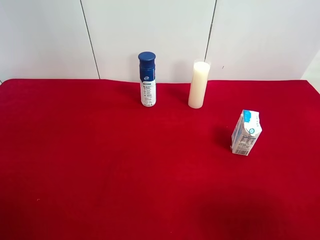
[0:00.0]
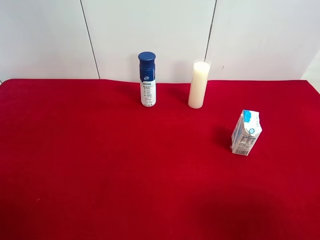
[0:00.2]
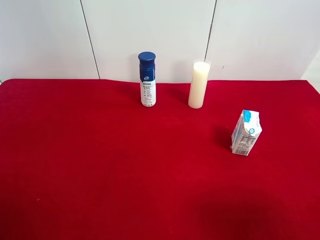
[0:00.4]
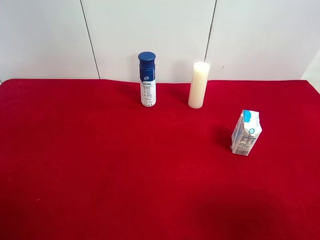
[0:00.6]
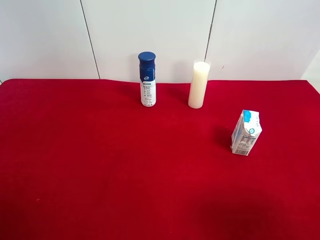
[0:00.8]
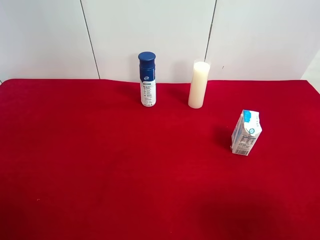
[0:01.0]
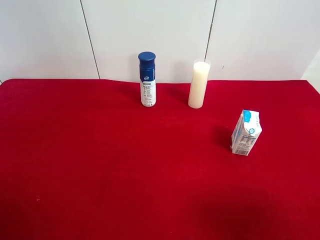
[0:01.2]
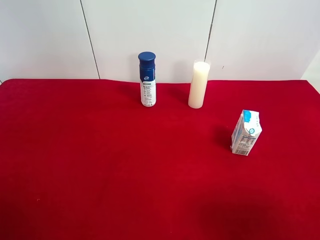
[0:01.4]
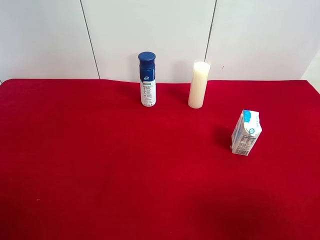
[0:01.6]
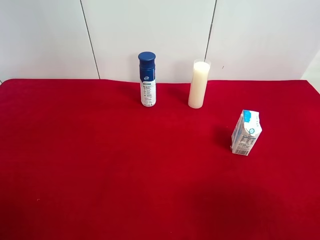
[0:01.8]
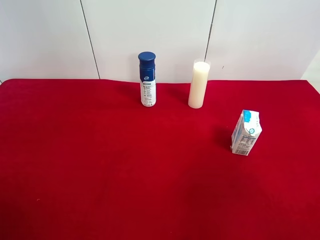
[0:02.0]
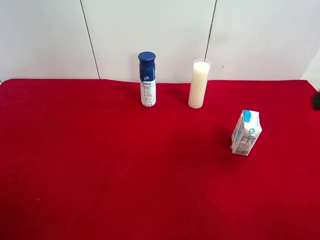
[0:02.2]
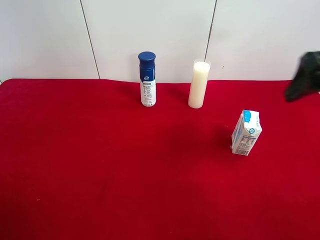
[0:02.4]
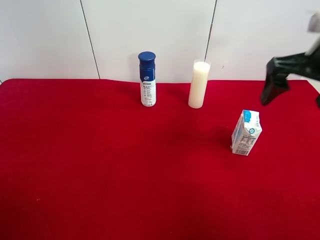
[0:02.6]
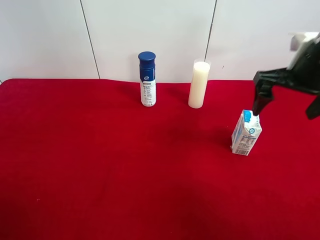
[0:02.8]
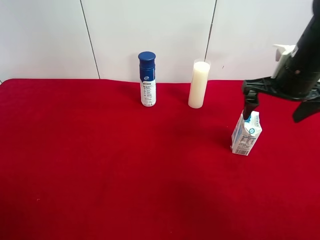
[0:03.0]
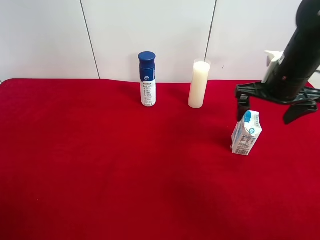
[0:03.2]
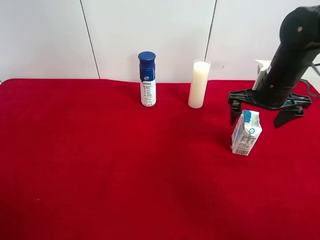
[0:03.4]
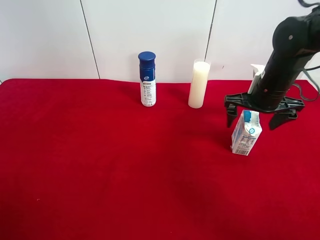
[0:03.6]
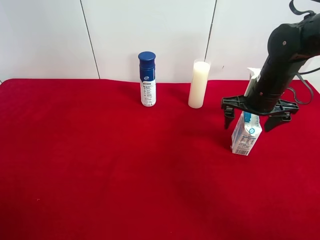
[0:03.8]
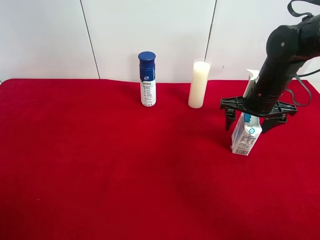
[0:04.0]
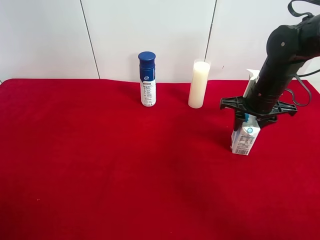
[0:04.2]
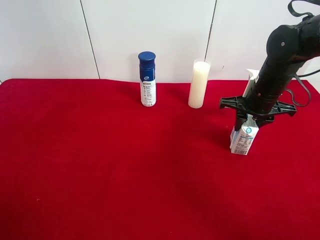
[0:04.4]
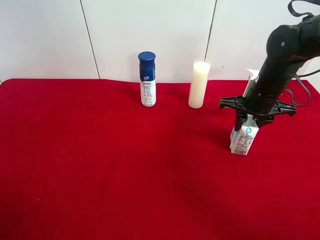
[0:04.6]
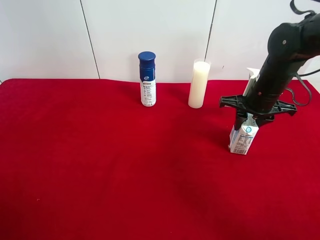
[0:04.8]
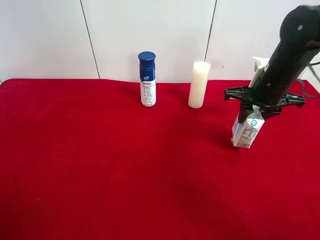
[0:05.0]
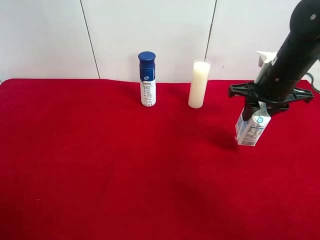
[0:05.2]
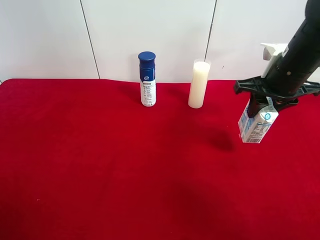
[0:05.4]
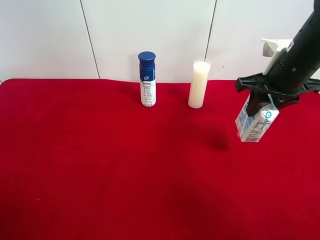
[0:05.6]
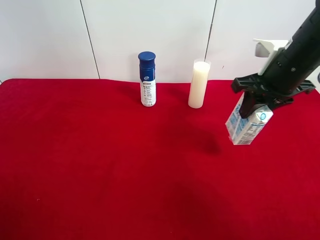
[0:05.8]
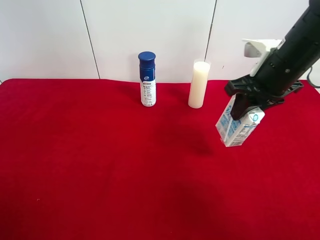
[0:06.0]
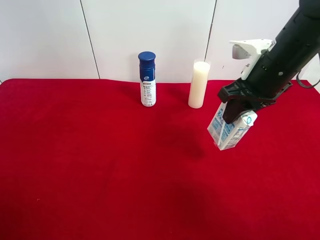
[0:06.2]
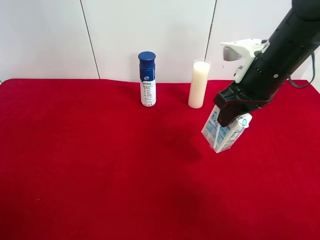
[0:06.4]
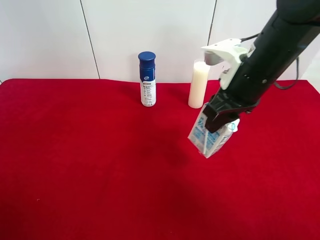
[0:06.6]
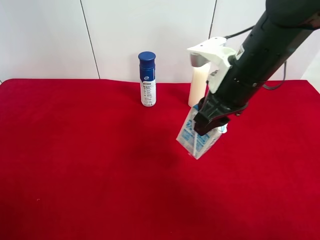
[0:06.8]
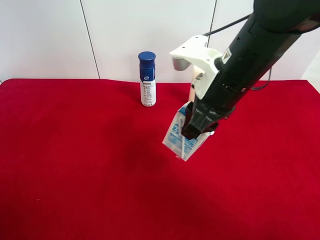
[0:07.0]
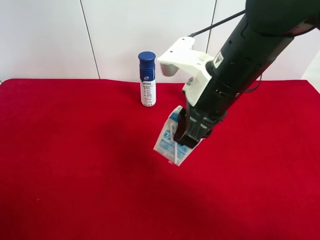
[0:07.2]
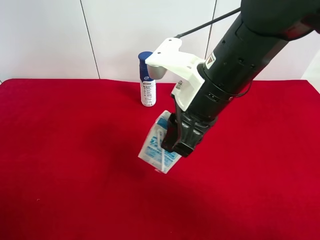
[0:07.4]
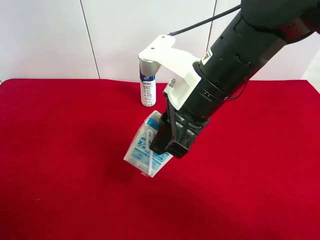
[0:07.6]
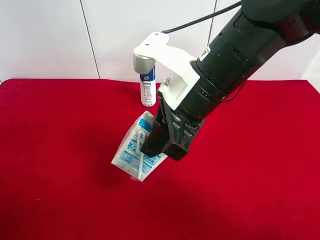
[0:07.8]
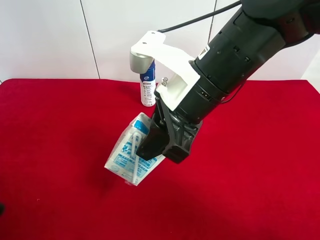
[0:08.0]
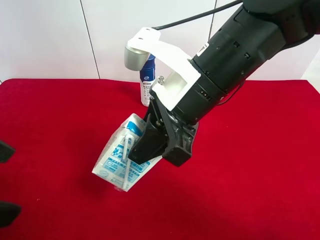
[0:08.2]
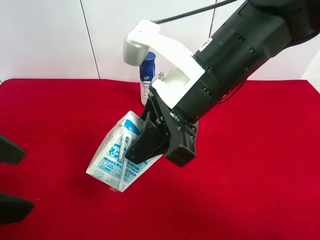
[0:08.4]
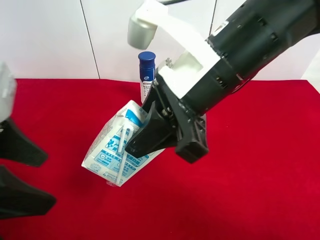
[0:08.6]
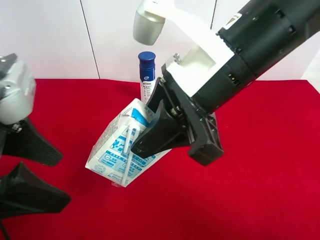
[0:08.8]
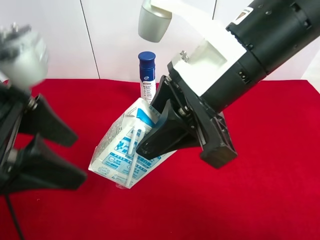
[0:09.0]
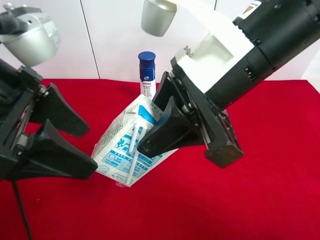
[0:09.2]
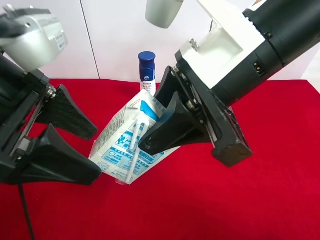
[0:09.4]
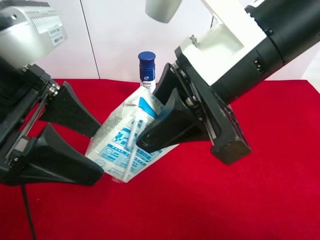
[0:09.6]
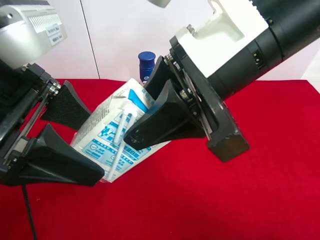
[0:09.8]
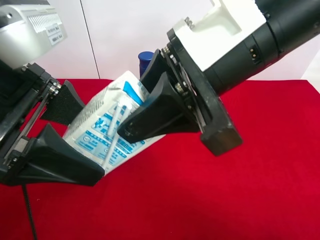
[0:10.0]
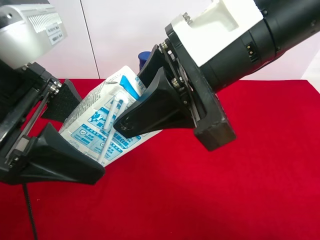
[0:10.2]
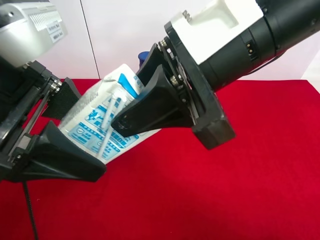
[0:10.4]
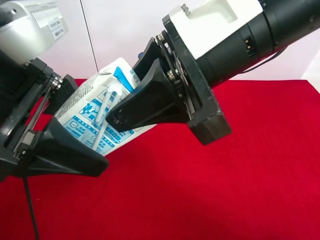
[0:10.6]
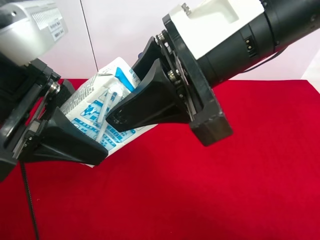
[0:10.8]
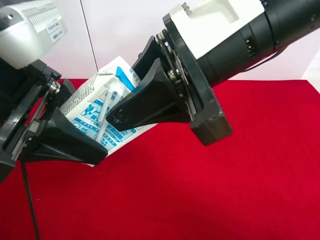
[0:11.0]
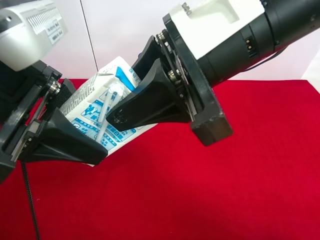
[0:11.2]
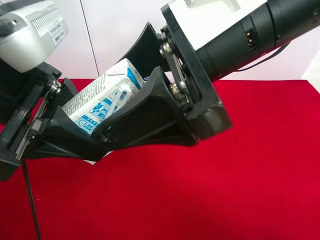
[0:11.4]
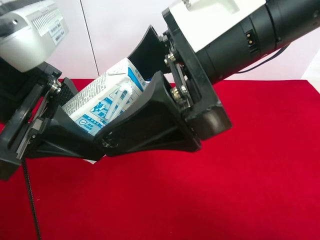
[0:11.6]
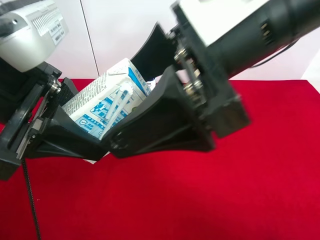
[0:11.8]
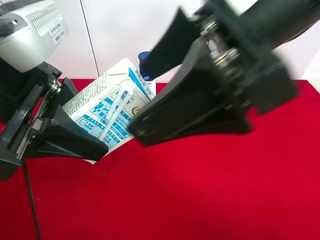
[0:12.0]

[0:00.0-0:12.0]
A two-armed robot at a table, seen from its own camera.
Task of the whole recording: use the right gripper to pick up the item and transfer it from the right gripper to the left gripper.
Step, 0:00.0 to 0:04.2: Use the right gripper to grab the milk on the right side of the table.
Step, 0:04.4 to 0:11.6: Pass the milk to the left gripper.
0:00.0 to 0:01.6: Neither gripper changes place.
0:01.6 to 0:03.0: The right gripper is displaced forward by some 30 cm.
0:03.0 to 0:04.4: The right gripper heads downward, covering about 5 cm, and closes up.
0:04.4 to 0:06.0: The right gripper travels upward by approximately 10 cm.
0:06.0 to 0:07.6: The left gripper moves forward and to the right, roughly 10 cm. The right gripper heads to the left and backward, covering approximately 15 cm.
0:07.6 to 0:09.0: The right gripper moves about 5 cm. Meanwhile the left gripper is displaced to the right and forward by roughly 15 cm.
0:10.4 to 0:12.0: The right gripper opens, while the left gripper closes its fingers.

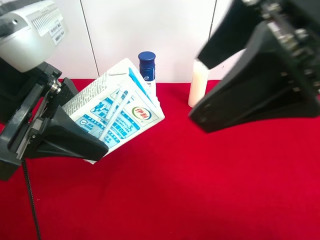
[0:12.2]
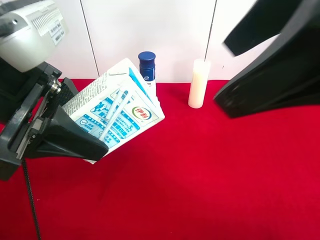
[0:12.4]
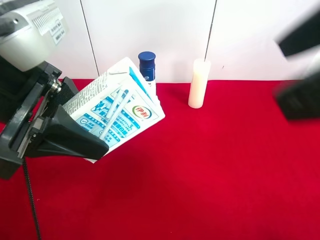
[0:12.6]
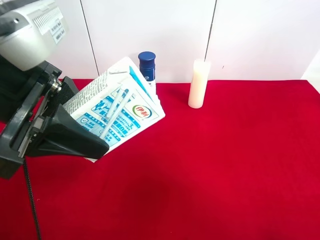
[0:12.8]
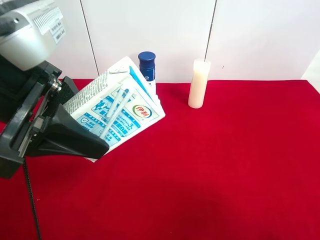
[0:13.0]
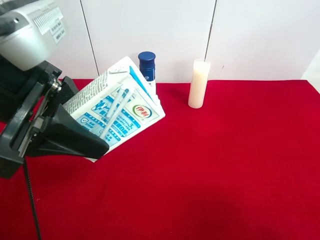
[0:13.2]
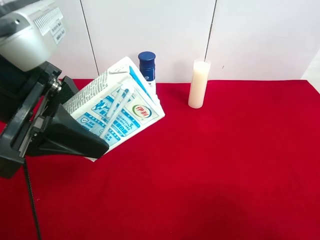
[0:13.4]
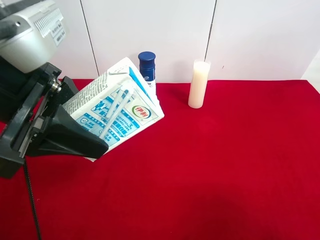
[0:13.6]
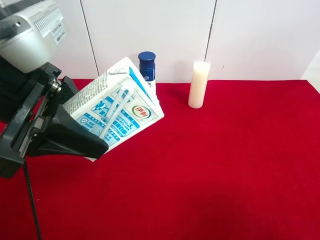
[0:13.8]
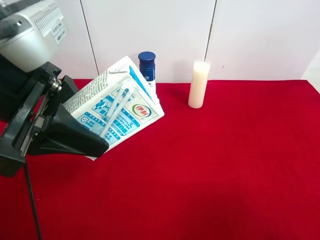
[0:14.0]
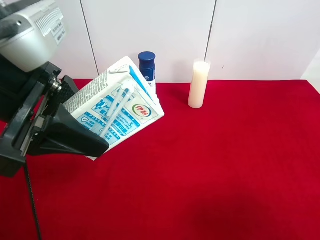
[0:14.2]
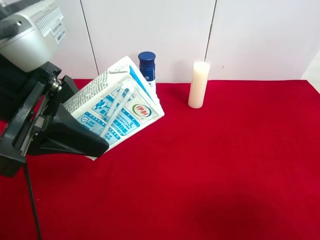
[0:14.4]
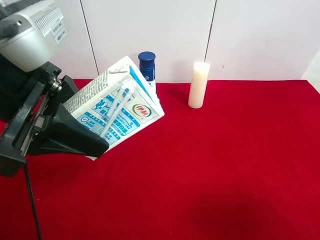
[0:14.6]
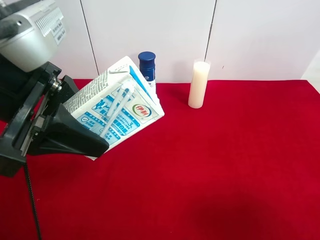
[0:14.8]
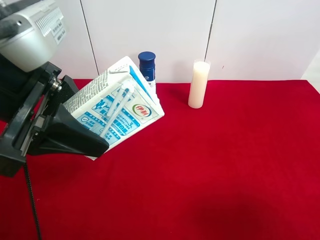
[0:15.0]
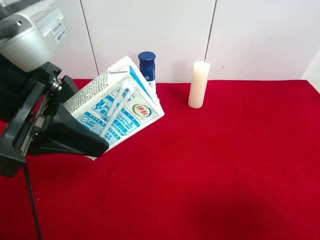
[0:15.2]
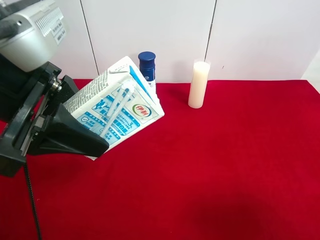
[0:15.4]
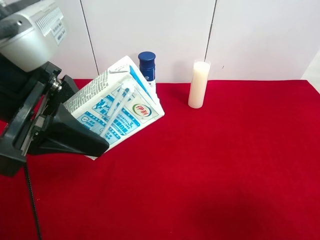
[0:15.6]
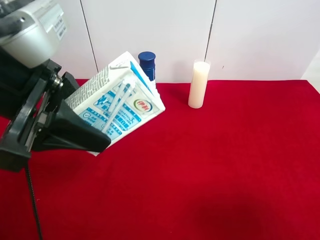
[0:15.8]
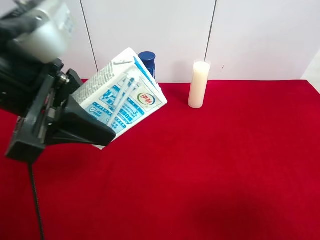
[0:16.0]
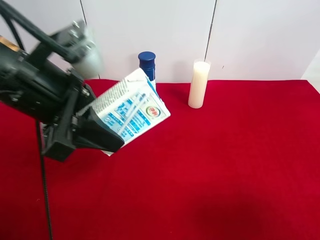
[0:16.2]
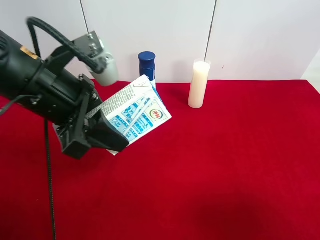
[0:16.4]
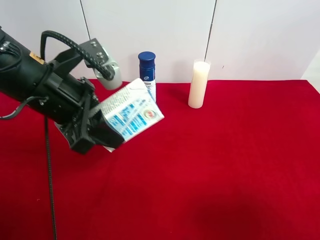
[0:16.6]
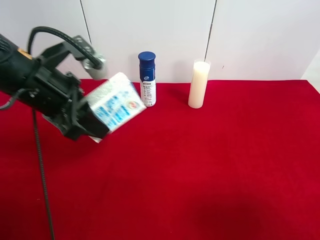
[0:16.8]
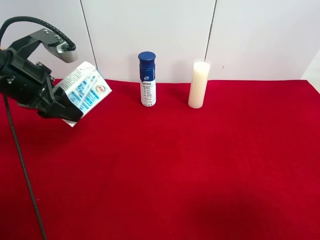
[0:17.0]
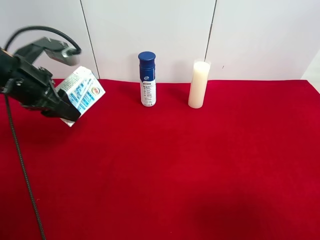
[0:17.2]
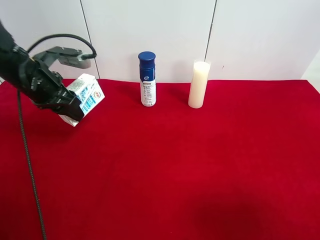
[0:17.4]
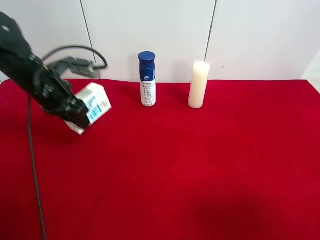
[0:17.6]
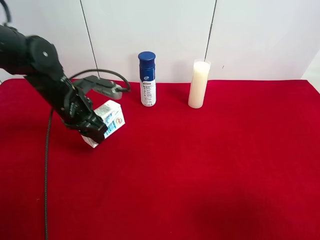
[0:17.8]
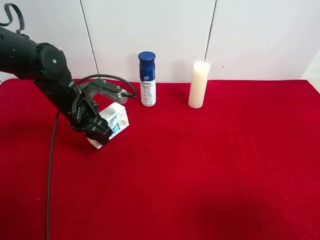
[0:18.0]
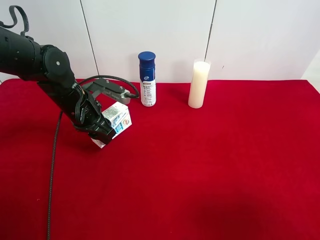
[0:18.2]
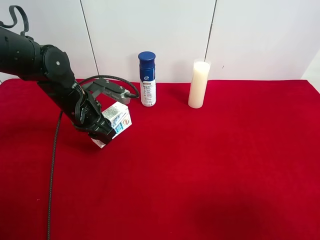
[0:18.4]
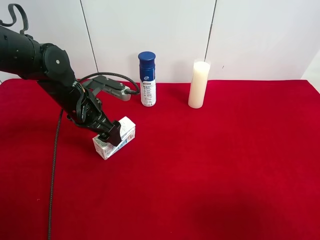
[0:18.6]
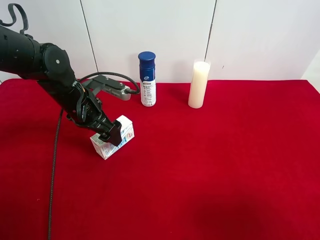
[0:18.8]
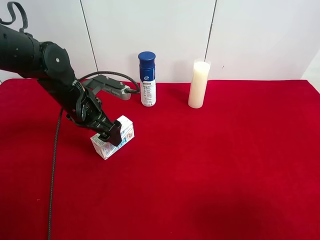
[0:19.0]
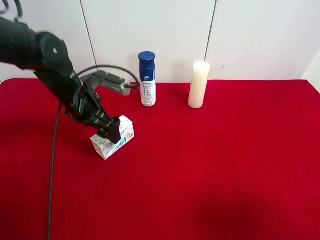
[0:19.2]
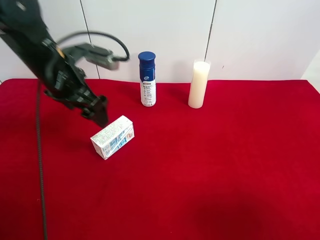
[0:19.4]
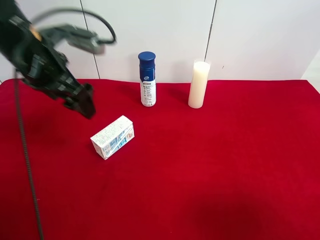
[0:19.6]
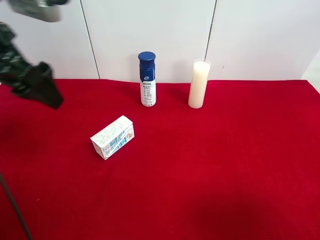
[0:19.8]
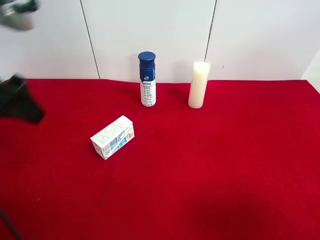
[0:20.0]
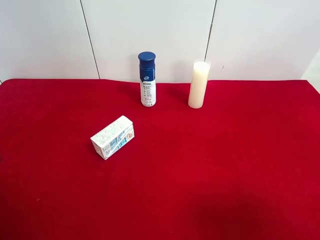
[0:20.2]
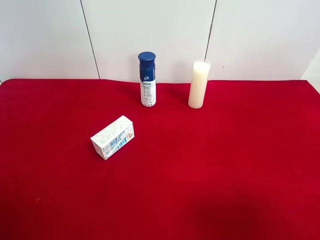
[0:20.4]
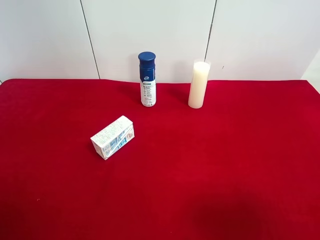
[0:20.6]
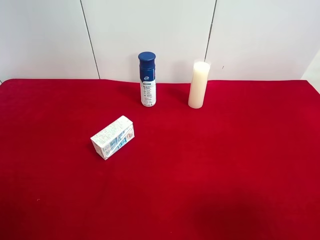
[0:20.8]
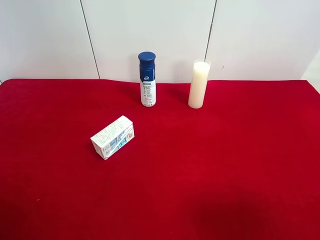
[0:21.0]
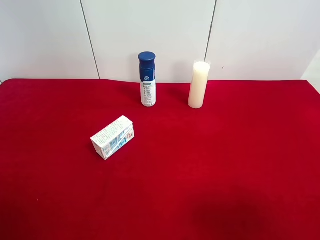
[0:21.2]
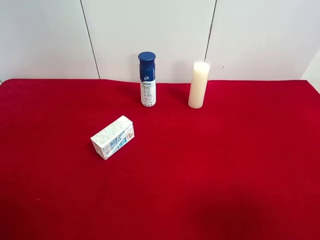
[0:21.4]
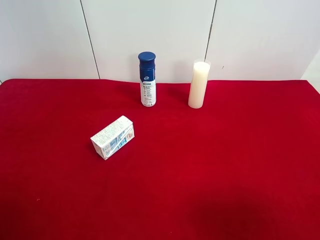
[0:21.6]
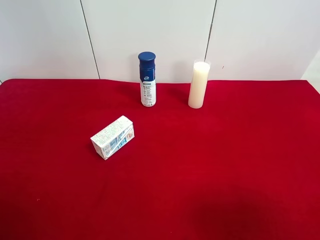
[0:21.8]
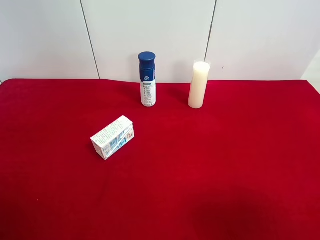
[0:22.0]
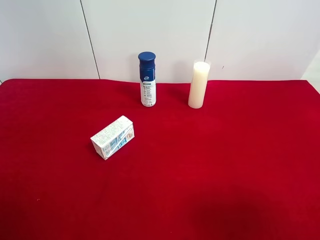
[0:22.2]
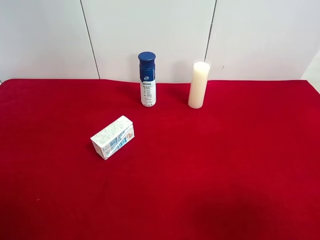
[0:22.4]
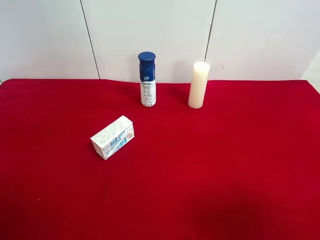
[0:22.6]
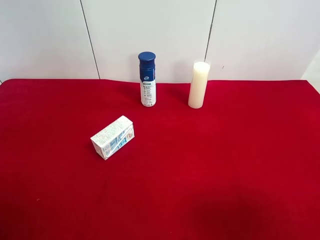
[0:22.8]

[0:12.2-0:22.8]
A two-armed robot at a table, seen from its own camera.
Task of the whole recording: use the right gripper to pick up the item and transfer it from the right gripper to the left gripper.
Step, 0:12.2 to 0:18.4: The left gripper places milk on the left side of the table.
0:12.2 to 0:13.8: The right gripper shifts some 25 cm to the right, backward and downward.
0:15.2 to 0:16.8: The left gripper goes roughly 10 cm forward and downward.
0:16.8 to 0:18.2: The left gripper goes approximately 15 cm downward and forward.
0:18.2 to 0:19.8: The left gripper heads upward and backward, covering approximately 20 cm, and opens.
0:19.8 to 0:21.2: The left gripper goes about 25 cm backward and to the left.
